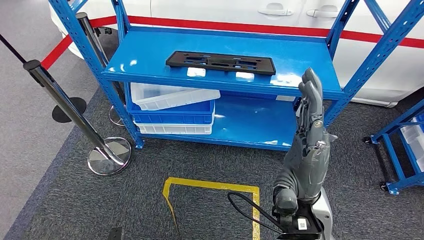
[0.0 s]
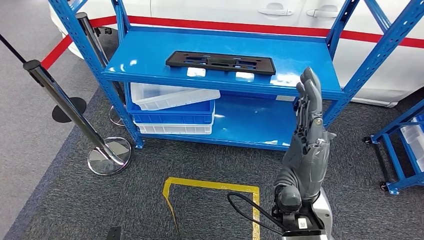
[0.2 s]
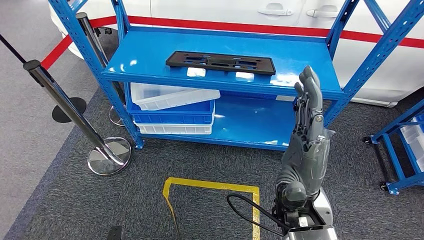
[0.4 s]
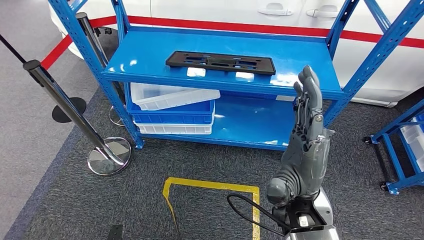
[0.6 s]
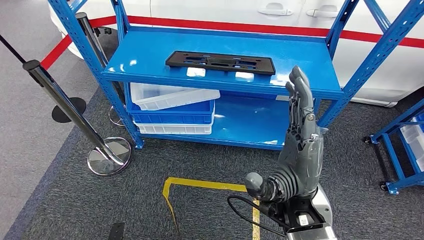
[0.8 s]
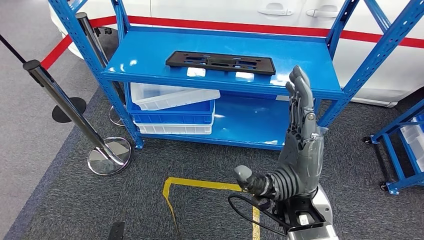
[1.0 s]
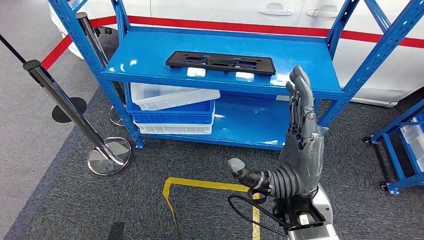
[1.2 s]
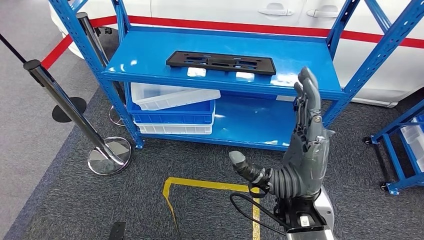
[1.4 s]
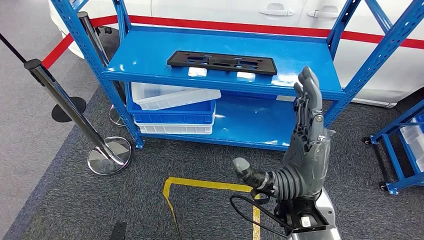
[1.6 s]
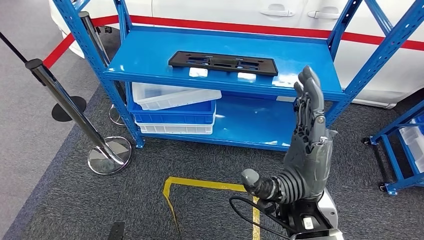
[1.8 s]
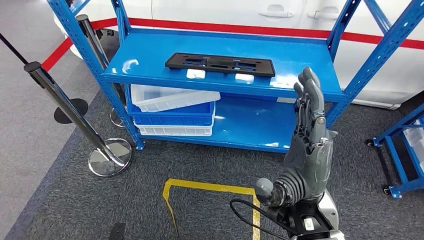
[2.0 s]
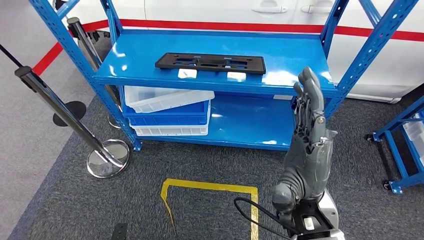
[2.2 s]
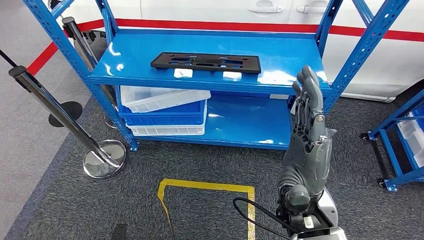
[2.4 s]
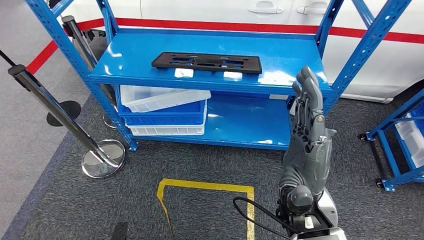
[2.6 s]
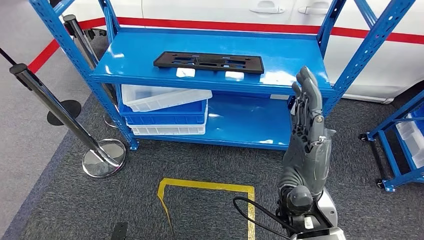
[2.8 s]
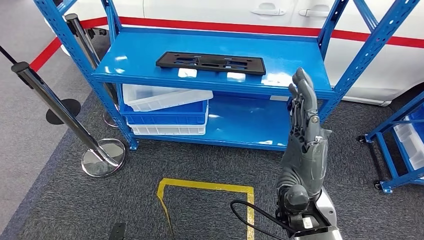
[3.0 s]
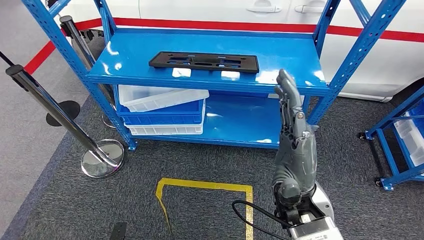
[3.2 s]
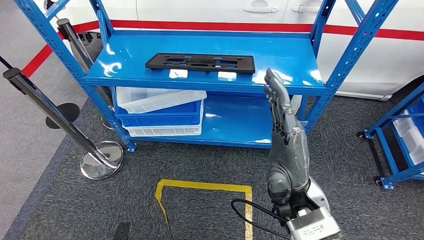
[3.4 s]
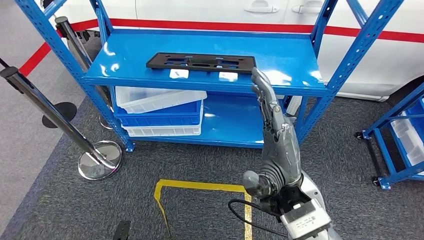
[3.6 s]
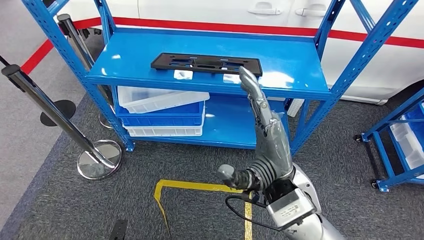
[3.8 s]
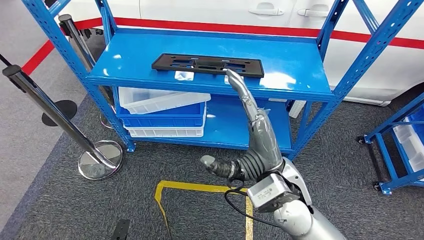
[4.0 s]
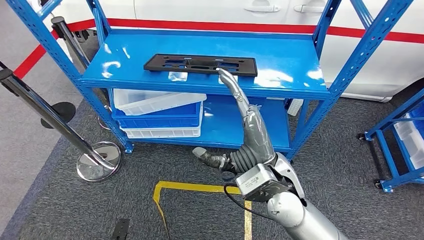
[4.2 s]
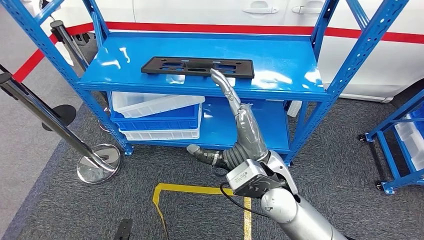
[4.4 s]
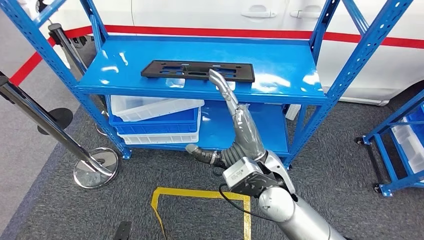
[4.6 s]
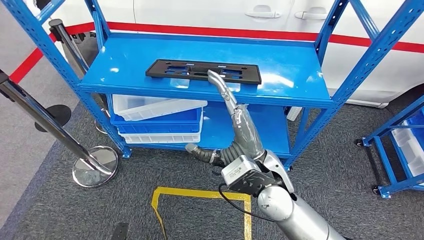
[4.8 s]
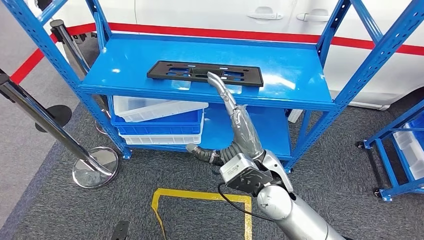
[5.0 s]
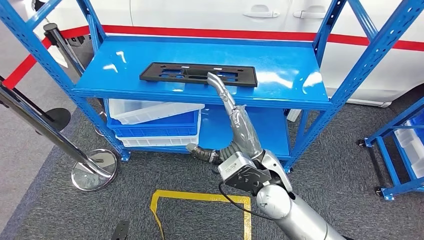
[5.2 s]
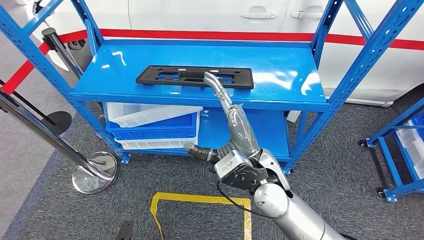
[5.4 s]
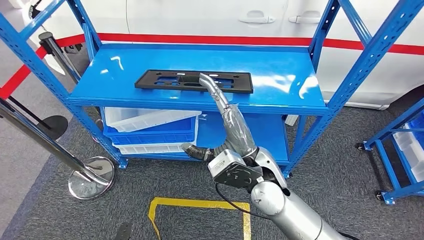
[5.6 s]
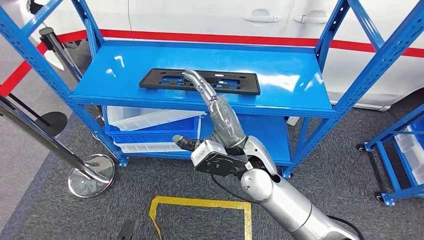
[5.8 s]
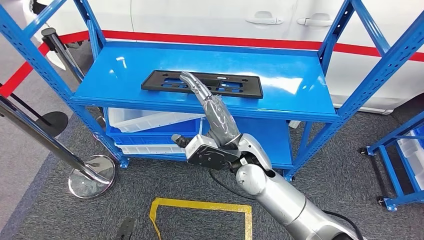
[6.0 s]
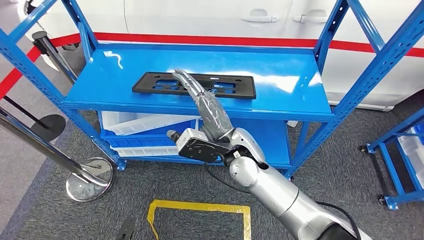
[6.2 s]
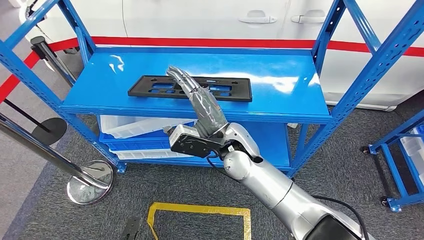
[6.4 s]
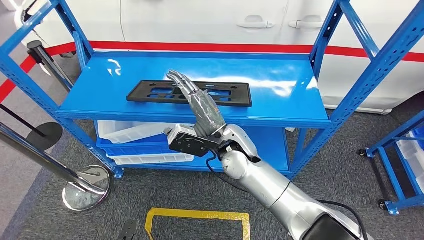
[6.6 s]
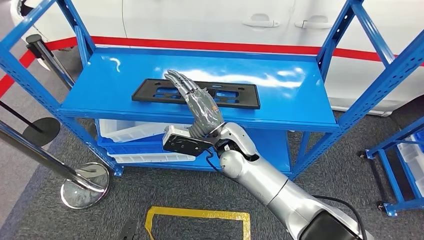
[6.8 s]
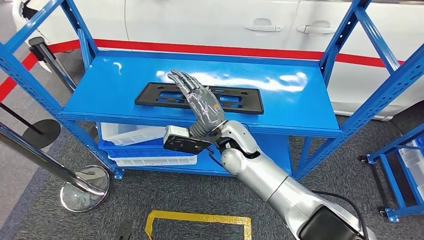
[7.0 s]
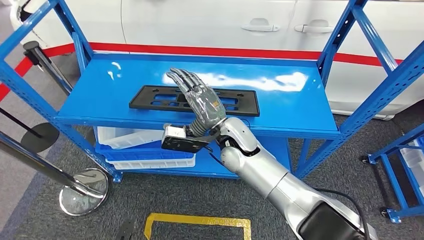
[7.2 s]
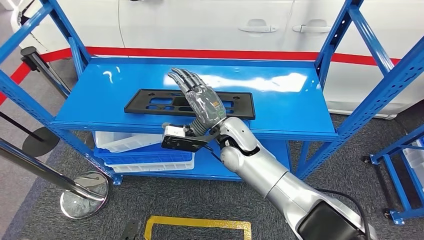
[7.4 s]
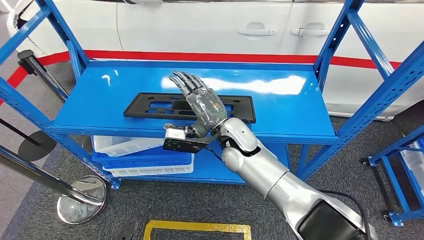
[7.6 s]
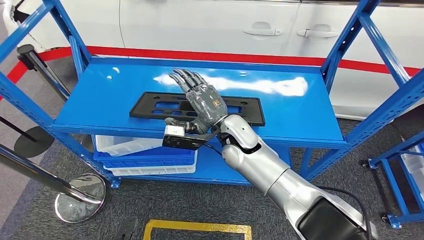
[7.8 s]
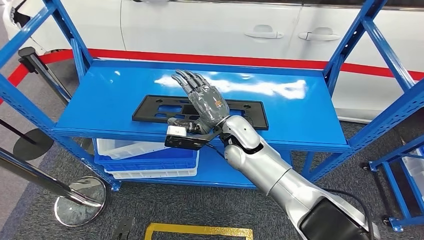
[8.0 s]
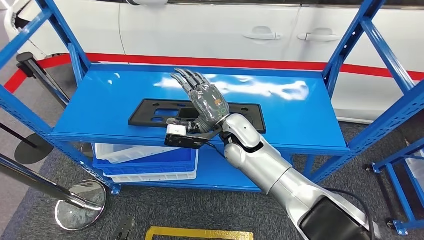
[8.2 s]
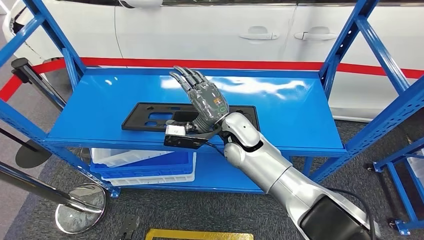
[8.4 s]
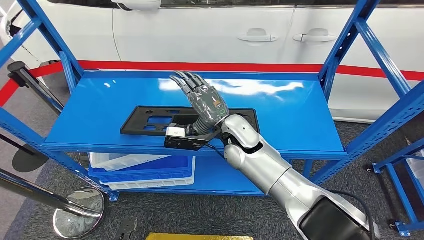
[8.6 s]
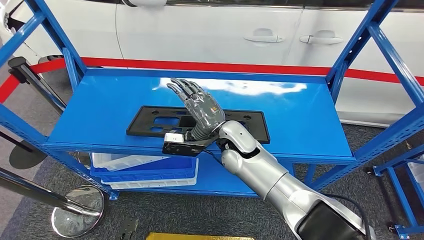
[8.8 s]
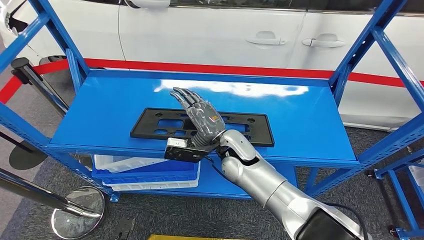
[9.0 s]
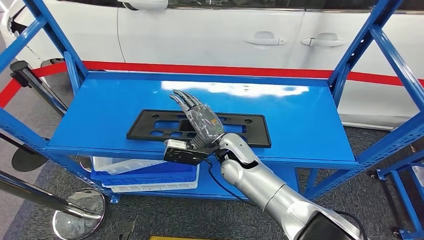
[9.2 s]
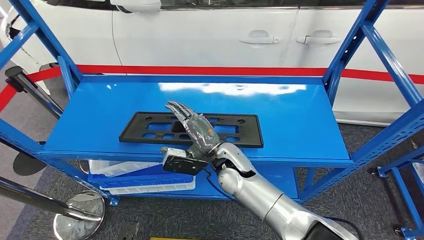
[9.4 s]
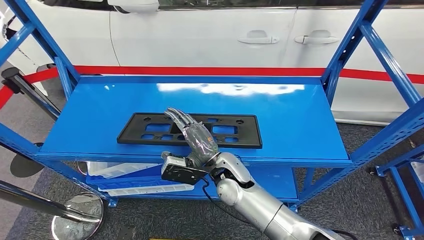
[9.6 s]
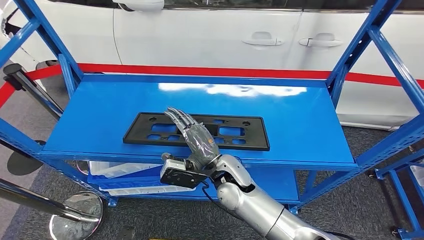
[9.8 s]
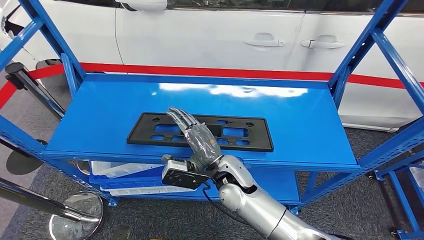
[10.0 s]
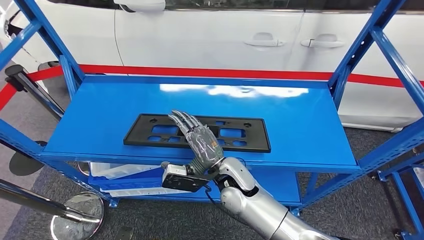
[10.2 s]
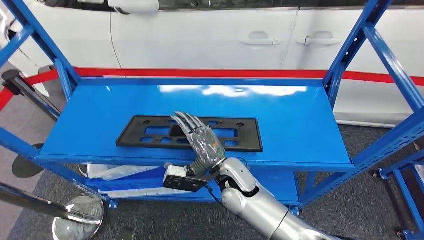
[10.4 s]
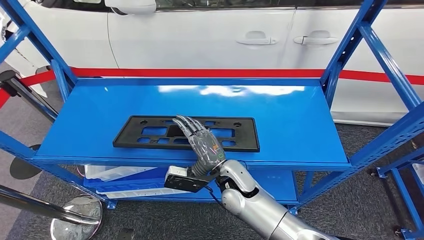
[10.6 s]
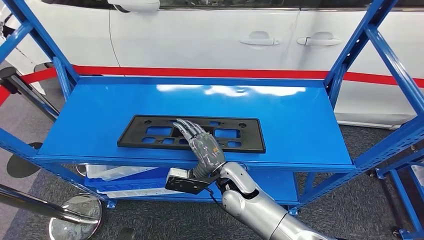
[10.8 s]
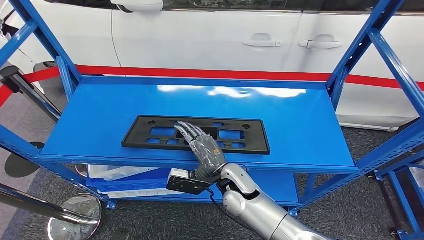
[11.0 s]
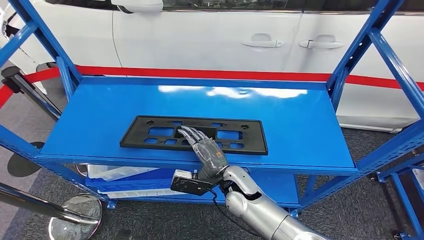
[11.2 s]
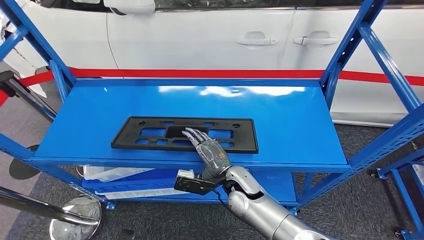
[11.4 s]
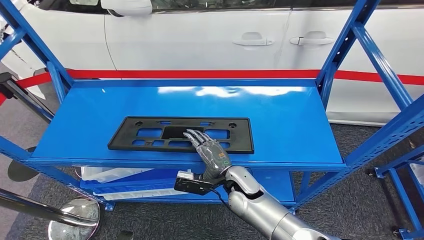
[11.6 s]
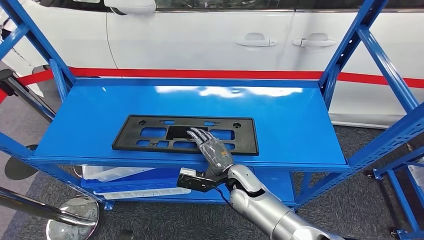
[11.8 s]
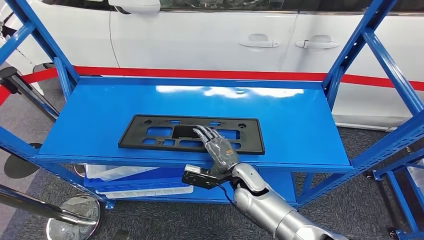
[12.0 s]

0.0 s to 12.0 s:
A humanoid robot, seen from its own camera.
0.0 to 1.6 s: The hands stay close to where they were, moving slightly.

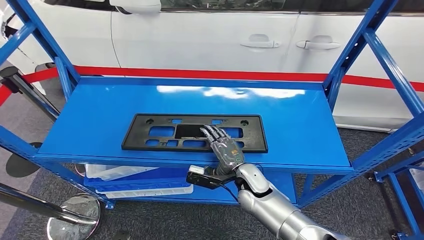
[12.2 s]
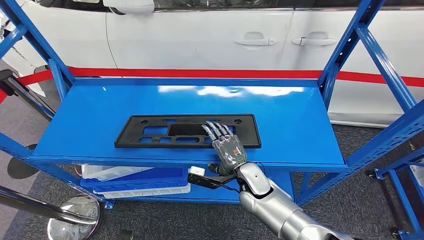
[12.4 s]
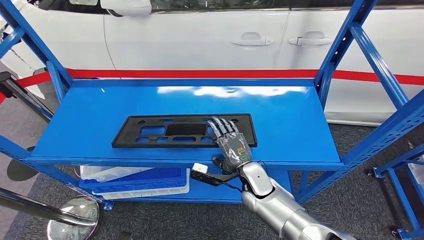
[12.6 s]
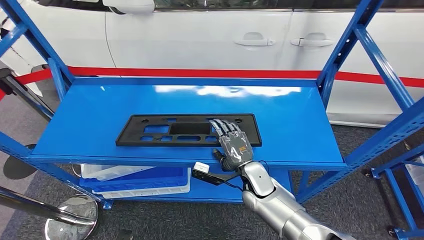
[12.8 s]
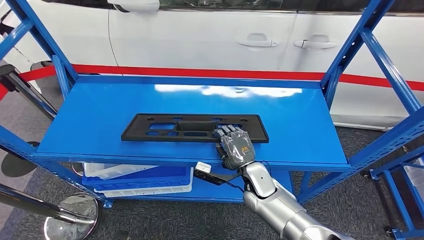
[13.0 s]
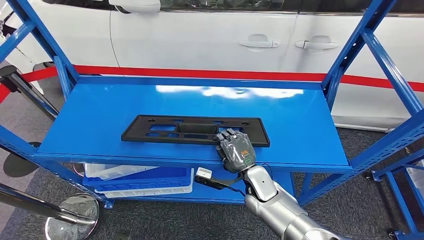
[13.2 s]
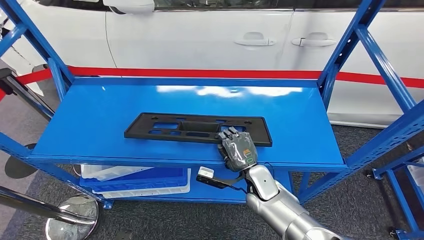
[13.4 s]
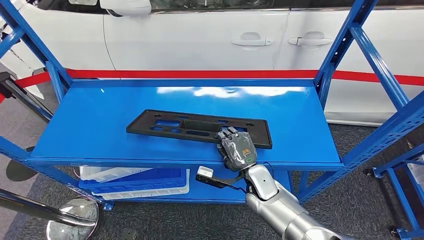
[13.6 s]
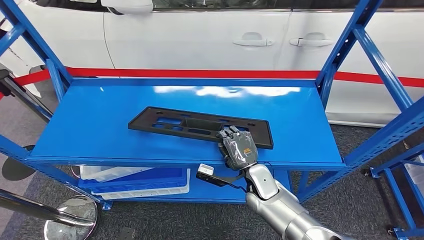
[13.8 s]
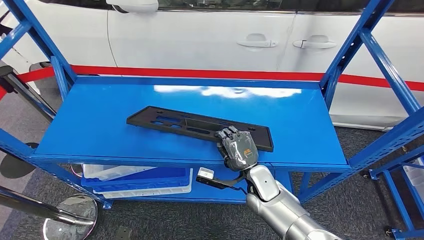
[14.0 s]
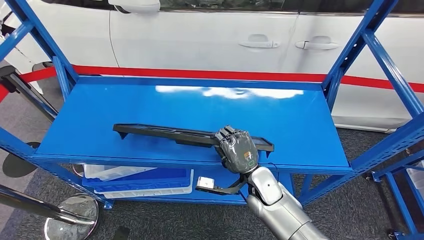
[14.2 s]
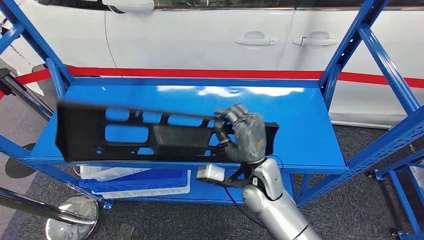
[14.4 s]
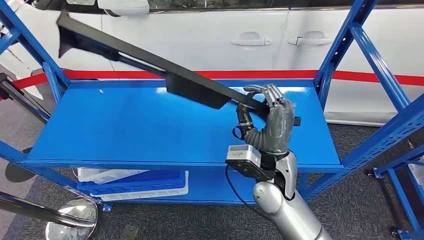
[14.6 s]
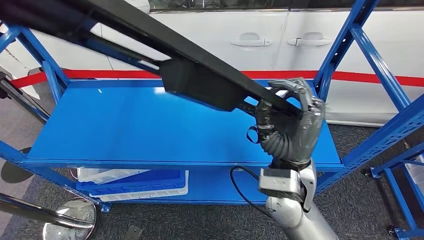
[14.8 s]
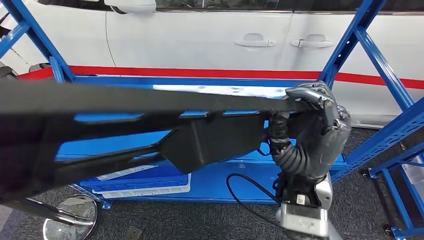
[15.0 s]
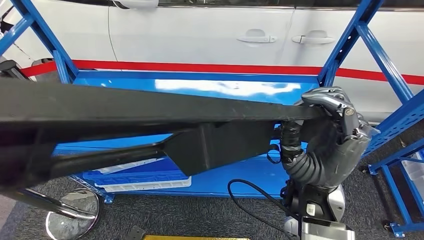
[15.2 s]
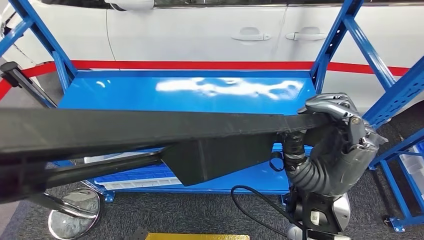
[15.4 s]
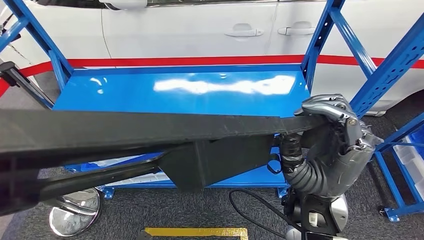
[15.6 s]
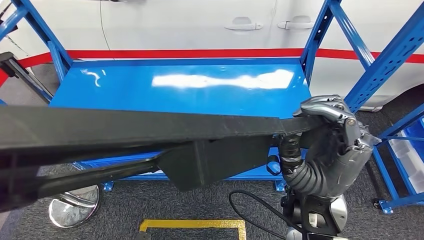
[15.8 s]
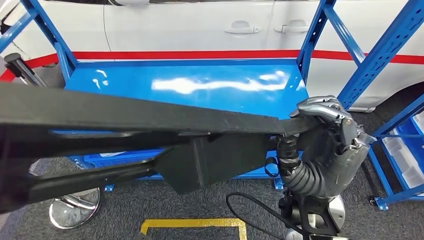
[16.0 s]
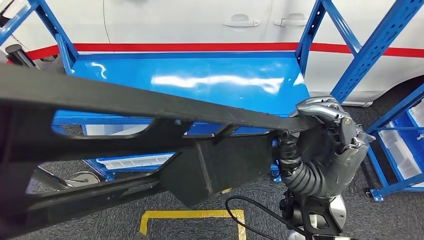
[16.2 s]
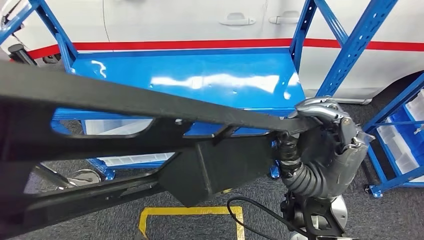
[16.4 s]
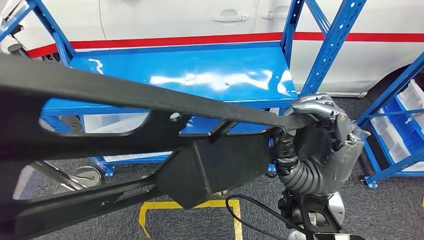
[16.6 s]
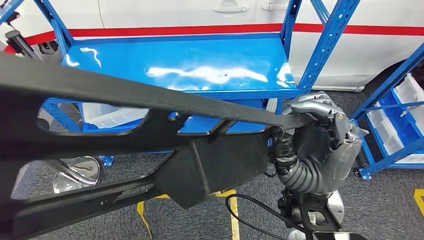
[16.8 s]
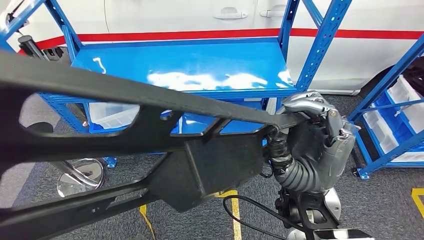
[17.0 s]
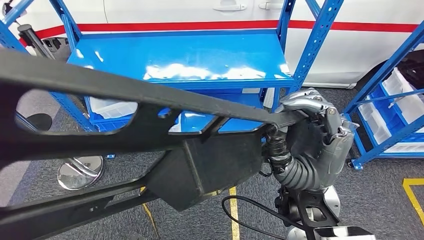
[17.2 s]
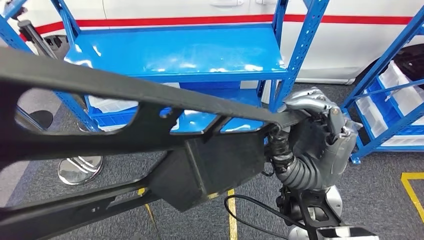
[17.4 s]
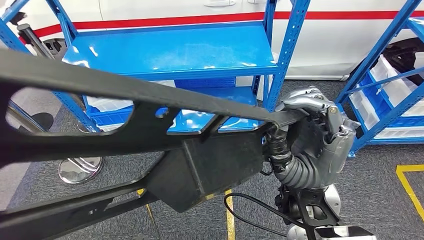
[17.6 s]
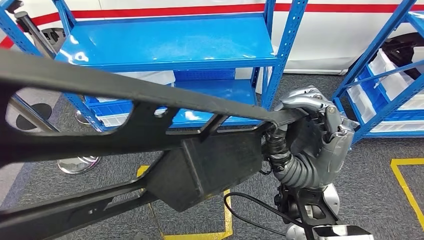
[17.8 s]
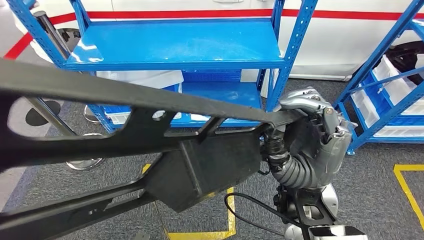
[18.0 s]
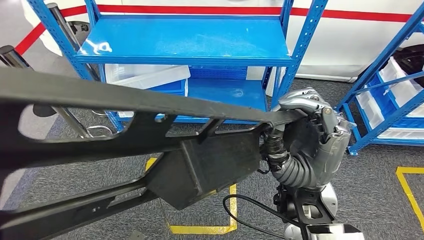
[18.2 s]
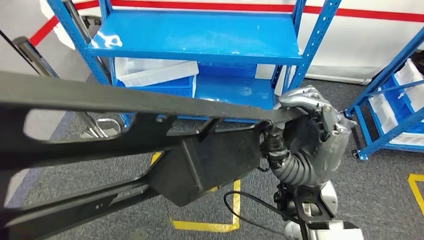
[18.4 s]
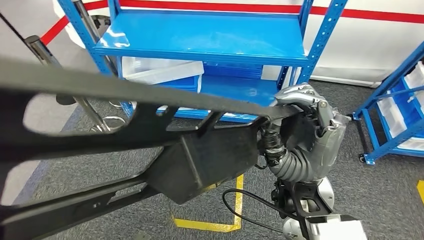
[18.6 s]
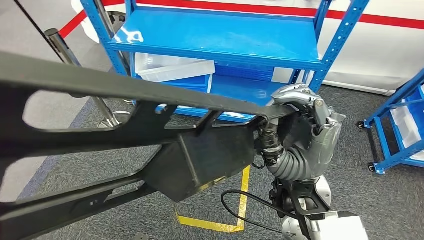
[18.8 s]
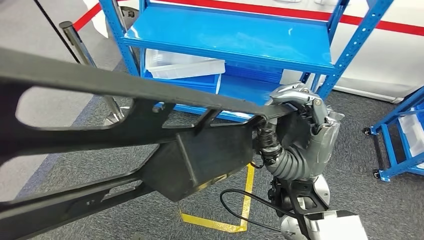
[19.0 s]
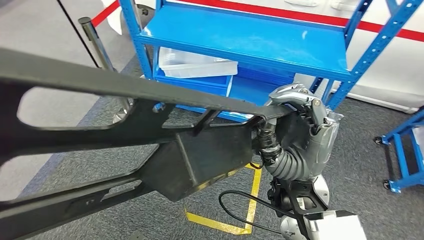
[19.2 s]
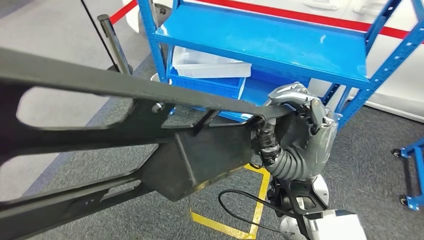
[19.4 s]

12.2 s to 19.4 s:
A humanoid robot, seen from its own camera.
Step, 12.2 to 14.8 s: Pick up the large material from the shelf.
